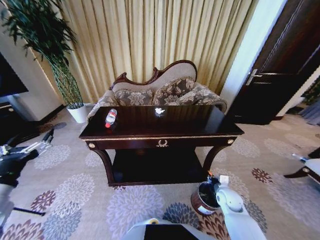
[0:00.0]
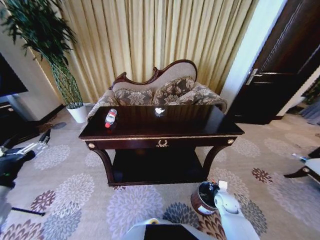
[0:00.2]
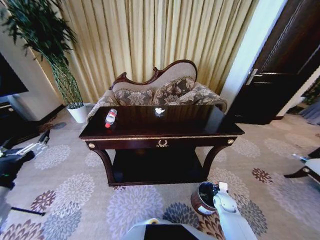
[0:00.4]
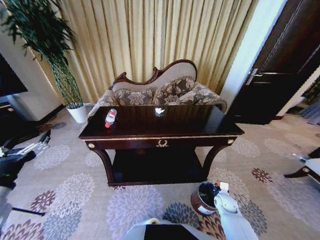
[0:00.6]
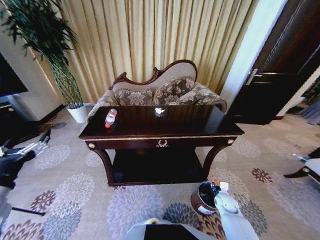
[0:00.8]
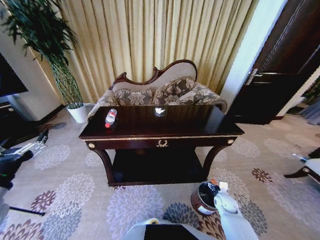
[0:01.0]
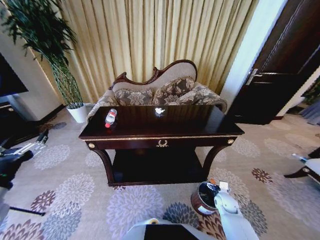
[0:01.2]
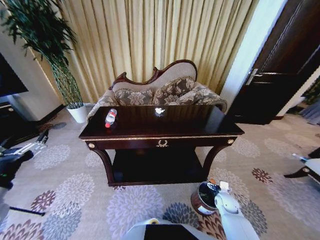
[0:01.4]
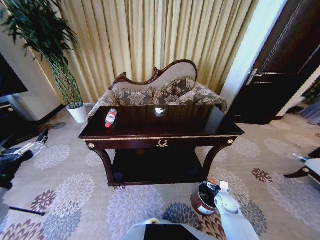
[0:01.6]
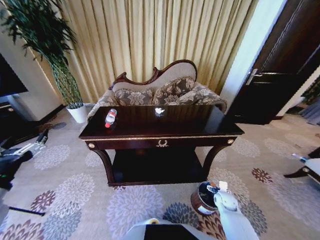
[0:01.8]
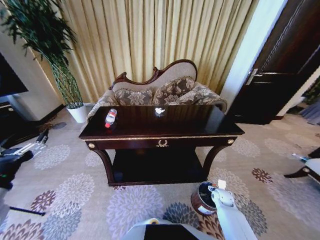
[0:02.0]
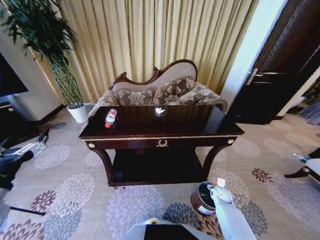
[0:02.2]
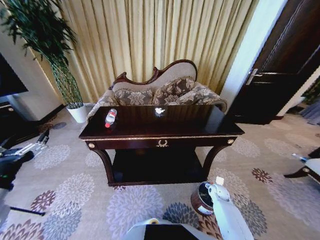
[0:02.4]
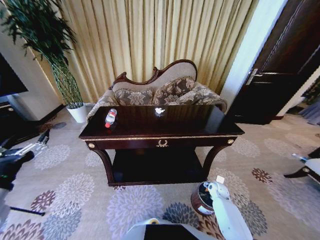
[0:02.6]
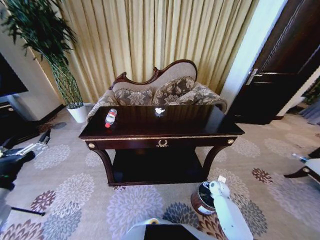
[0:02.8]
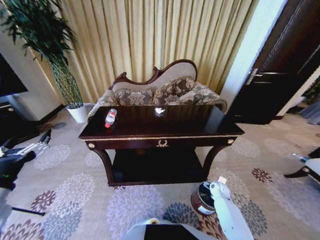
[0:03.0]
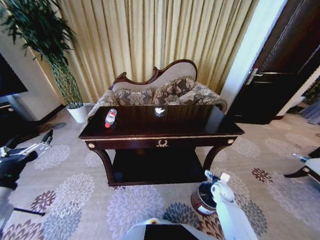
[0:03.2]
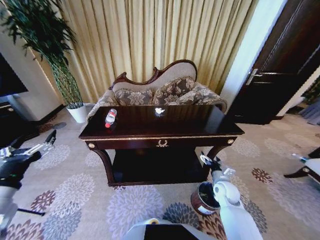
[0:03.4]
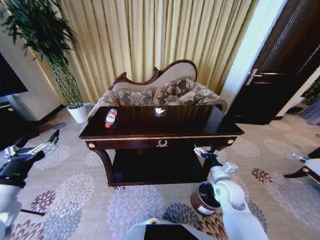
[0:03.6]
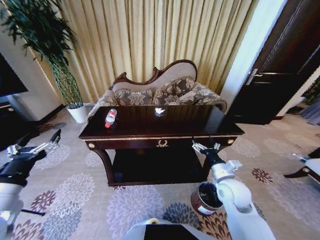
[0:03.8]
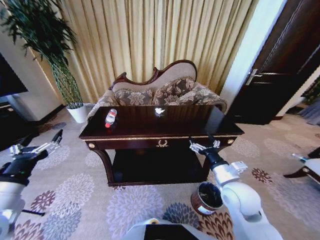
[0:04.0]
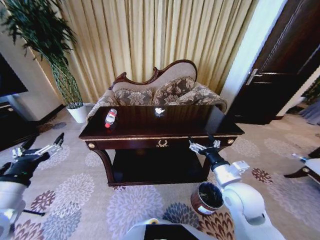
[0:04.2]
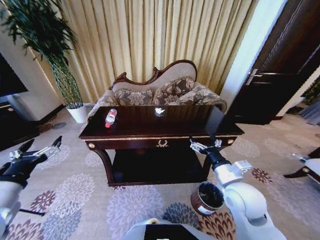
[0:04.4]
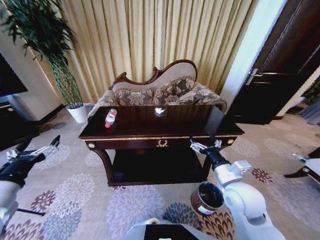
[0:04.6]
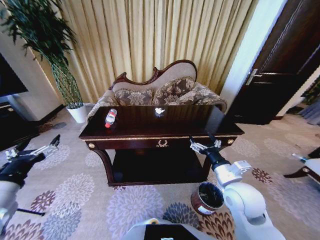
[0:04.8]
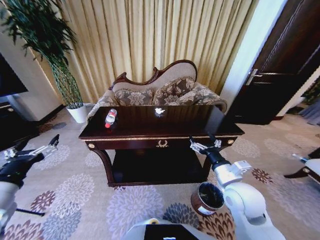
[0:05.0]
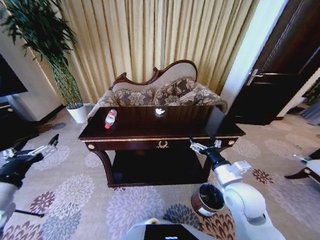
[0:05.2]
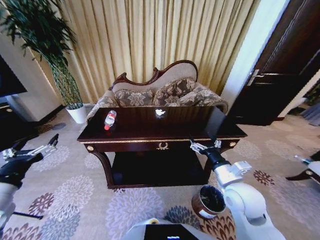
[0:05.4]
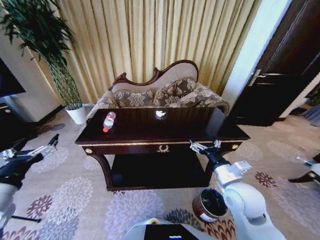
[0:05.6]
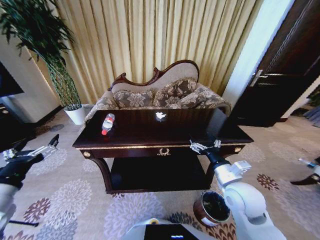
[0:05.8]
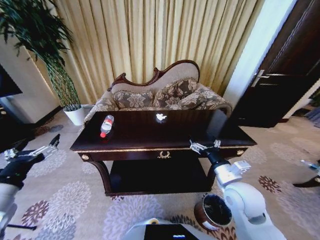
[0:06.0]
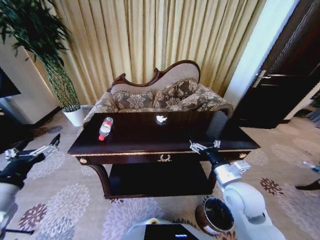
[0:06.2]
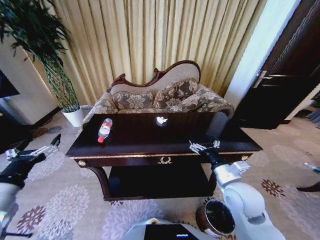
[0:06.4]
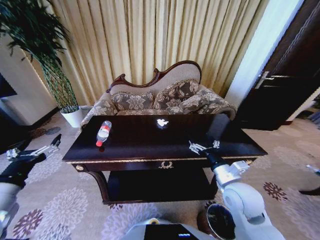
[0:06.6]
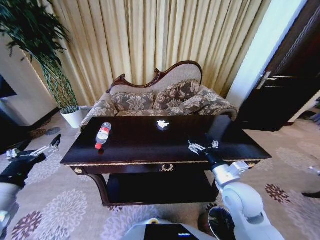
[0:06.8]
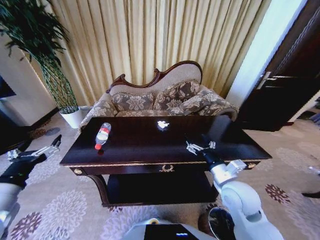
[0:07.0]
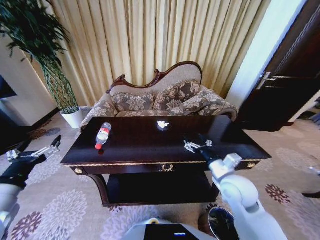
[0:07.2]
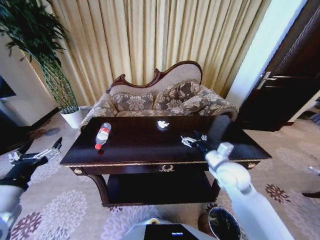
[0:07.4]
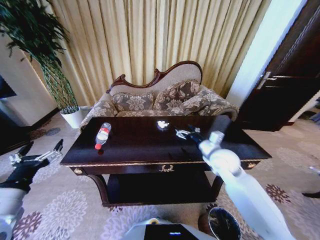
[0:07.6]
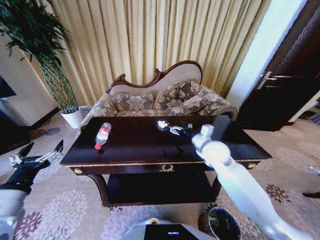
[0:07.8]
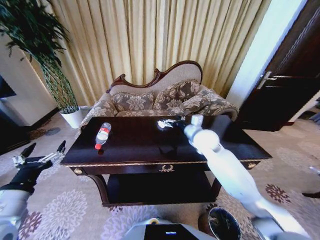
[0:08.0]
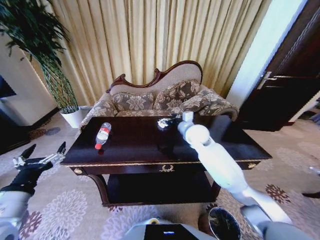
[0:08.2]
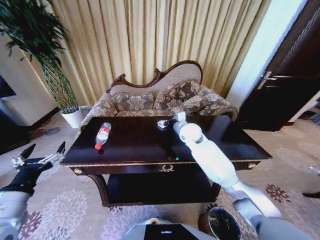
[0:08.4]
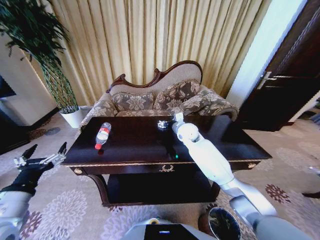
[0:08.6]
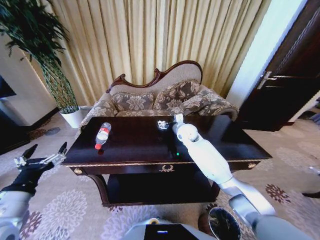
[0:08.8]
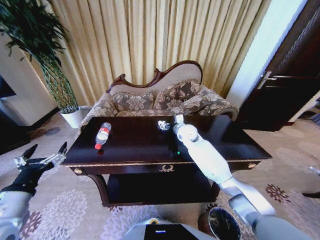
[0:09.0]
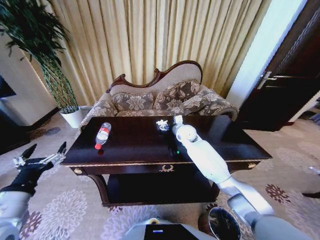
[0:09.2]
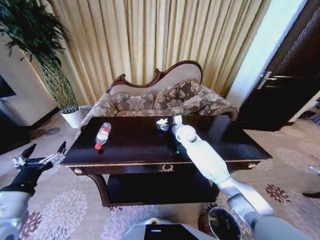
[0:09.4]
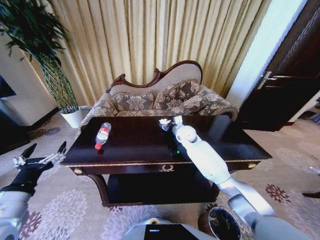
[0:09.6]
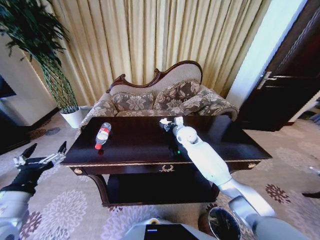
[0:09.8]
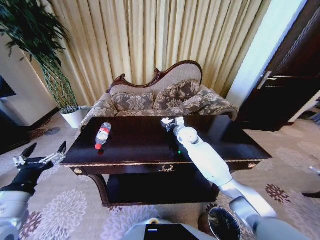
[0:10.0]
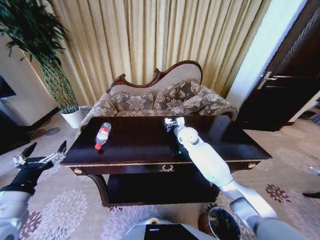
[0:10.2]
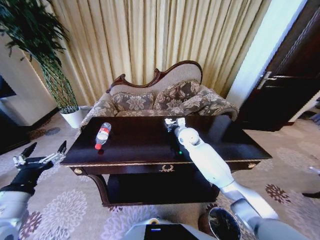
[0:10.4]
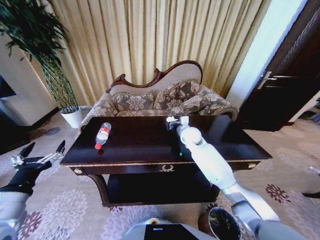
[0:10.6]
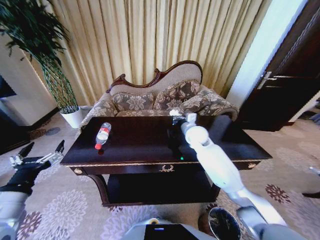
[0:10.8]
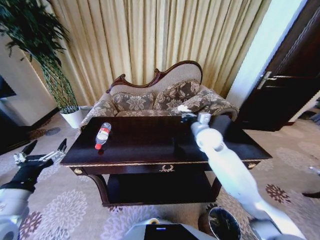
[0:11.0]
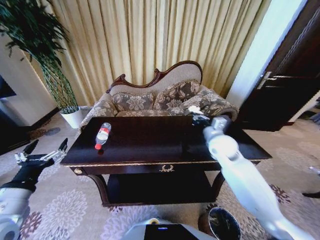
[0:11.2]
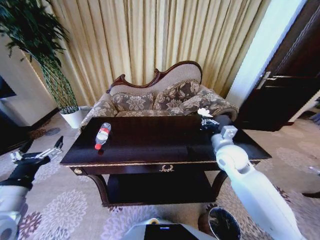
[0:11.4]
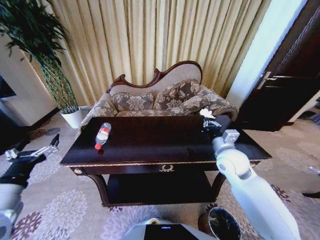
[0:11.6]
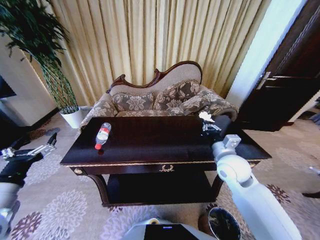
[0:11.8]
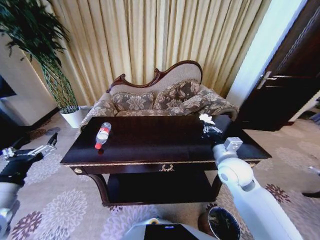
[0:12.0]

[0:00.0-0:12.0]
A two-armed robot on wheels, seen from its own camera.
Task of the whole recording: Move to the front of the table and place the trash on the table into the trash bin.
0:00.0 to 0:01.6: The right gripper is displaced downward by about 5 cm, and opens up.
0:01.6 to 0:03.0: The right gripper travels forward by some 5 cm.
0:03.0 to 0:04.4: The right gripper travels upward by roughly 30 cm.
0:06.0 to 0:07.6: The right gripper is displaced forward by some 15 cm.
0:07.6 to 0:09.0: The right gripper heads forward and to the left, covering some 20 cm.
0:09.0 to 0:10.4: The right gripper closes its fingers.
0:10.4 to 0:12.0: The right gripper shifts some 20 cm backward and to the right.

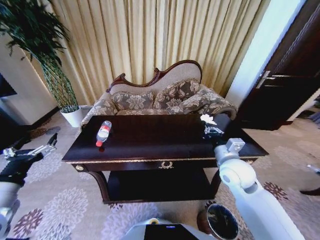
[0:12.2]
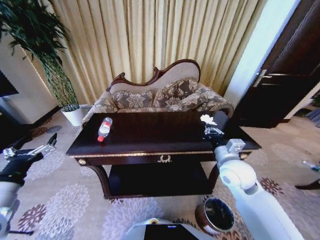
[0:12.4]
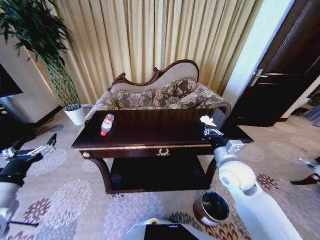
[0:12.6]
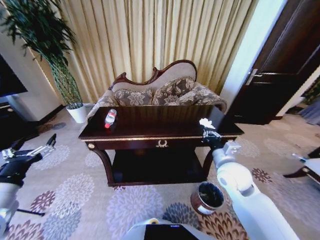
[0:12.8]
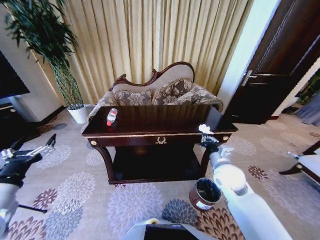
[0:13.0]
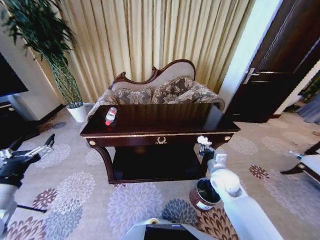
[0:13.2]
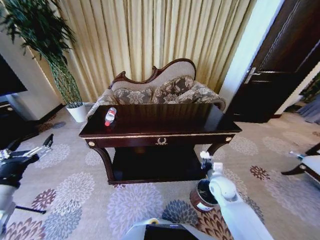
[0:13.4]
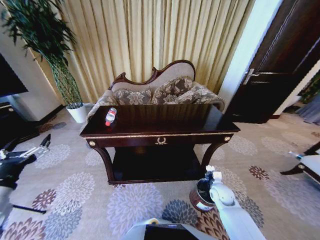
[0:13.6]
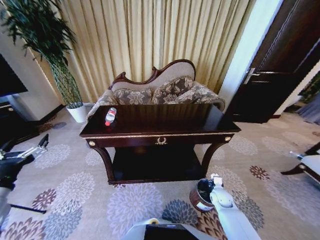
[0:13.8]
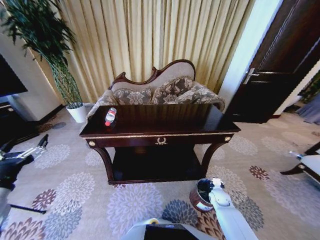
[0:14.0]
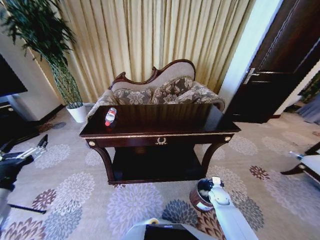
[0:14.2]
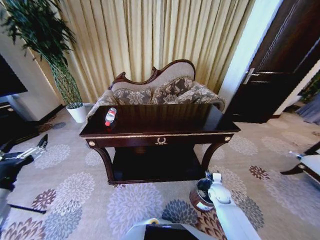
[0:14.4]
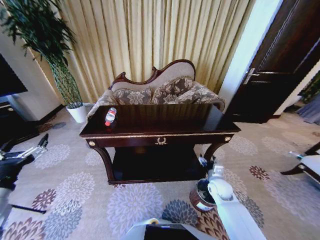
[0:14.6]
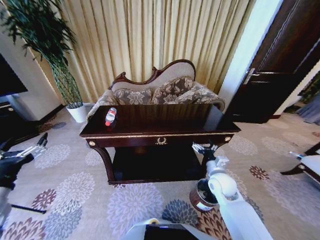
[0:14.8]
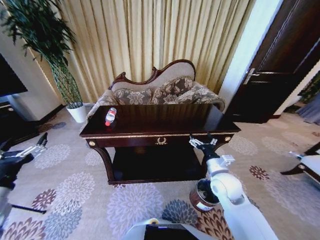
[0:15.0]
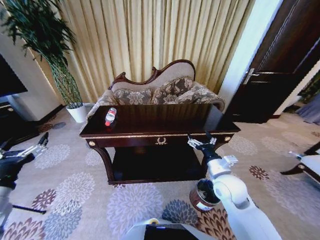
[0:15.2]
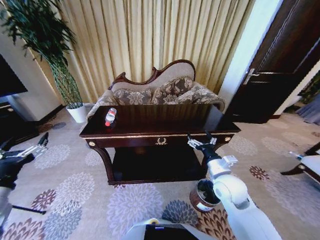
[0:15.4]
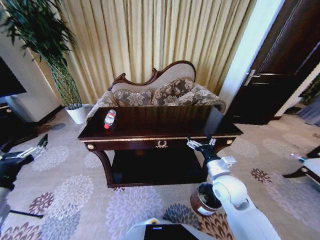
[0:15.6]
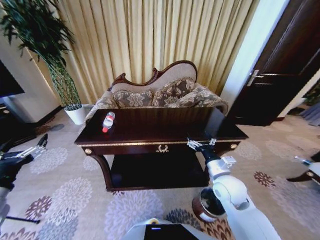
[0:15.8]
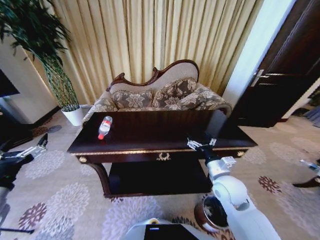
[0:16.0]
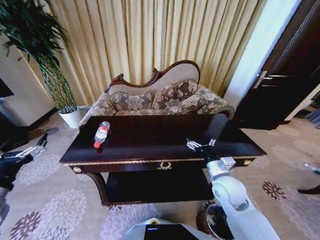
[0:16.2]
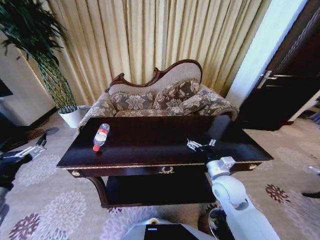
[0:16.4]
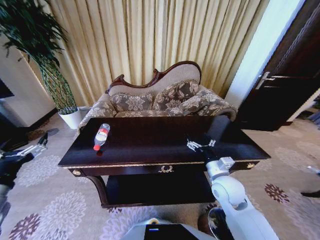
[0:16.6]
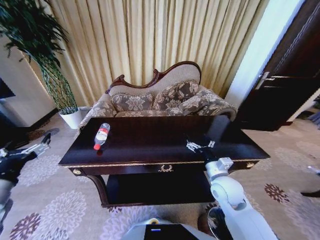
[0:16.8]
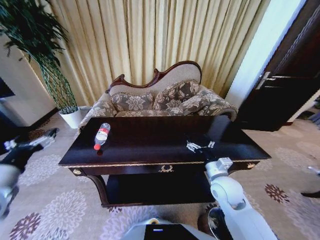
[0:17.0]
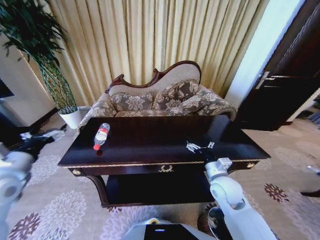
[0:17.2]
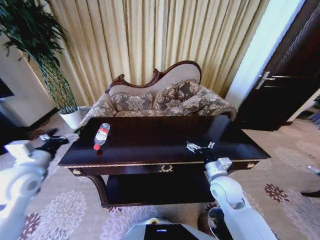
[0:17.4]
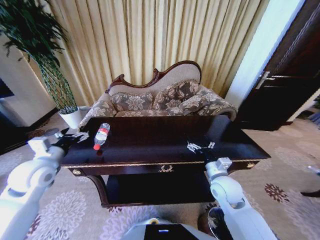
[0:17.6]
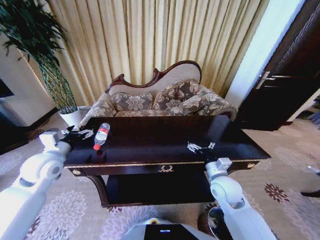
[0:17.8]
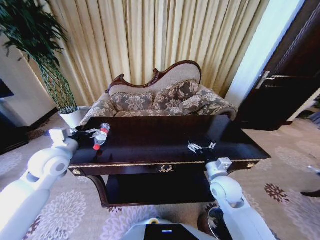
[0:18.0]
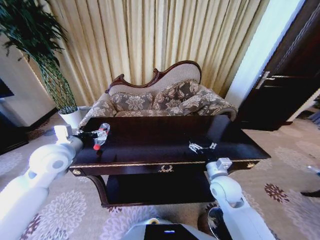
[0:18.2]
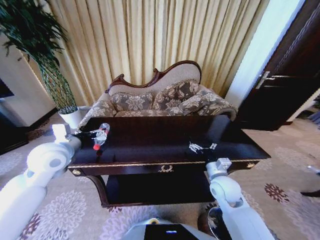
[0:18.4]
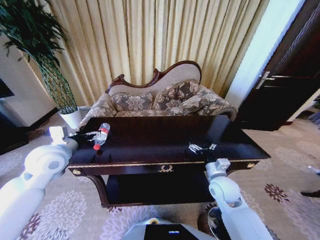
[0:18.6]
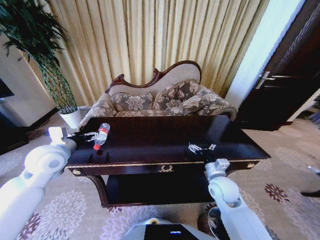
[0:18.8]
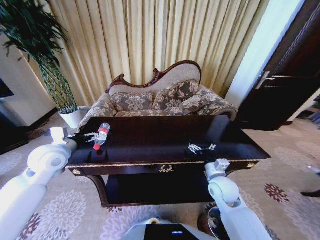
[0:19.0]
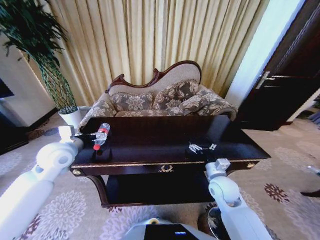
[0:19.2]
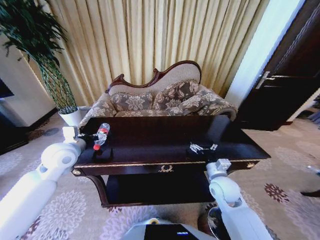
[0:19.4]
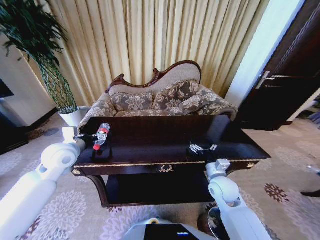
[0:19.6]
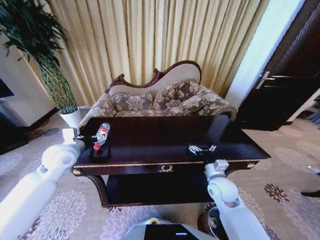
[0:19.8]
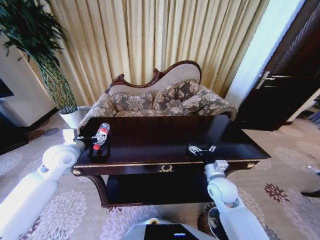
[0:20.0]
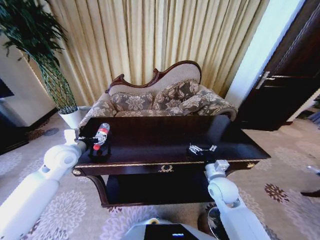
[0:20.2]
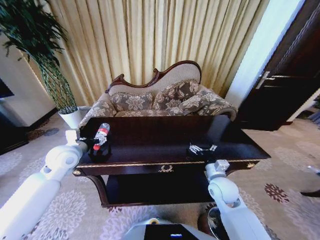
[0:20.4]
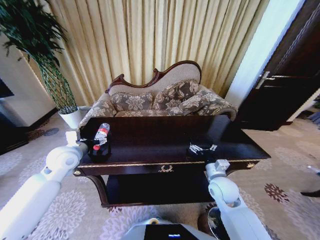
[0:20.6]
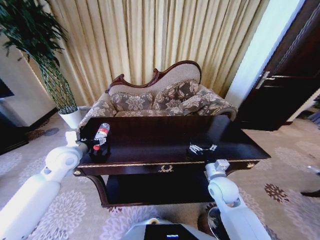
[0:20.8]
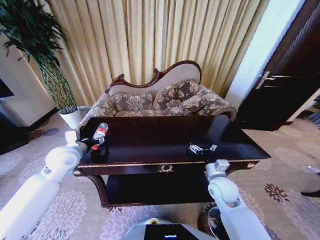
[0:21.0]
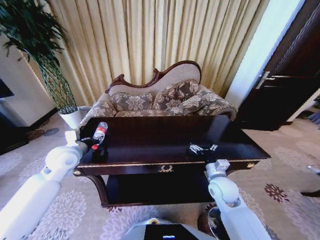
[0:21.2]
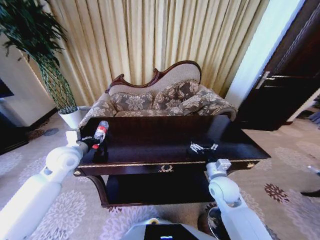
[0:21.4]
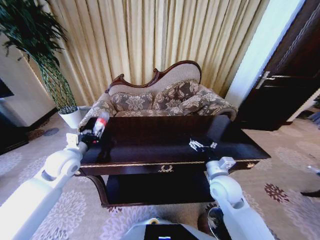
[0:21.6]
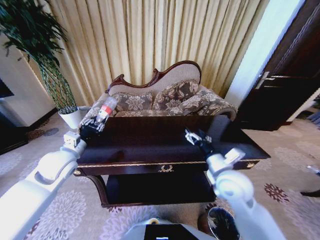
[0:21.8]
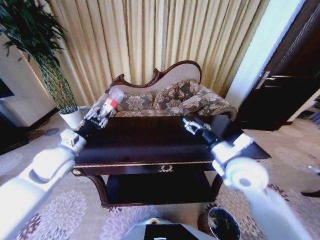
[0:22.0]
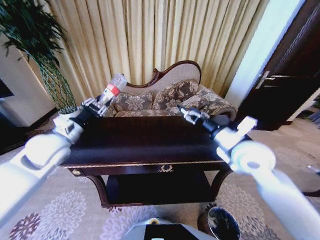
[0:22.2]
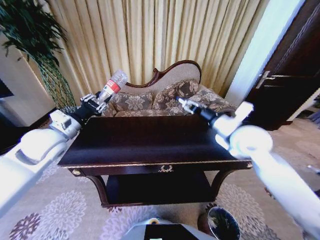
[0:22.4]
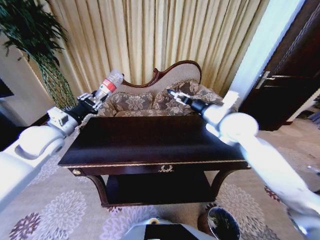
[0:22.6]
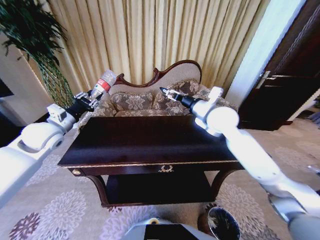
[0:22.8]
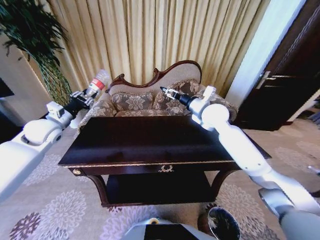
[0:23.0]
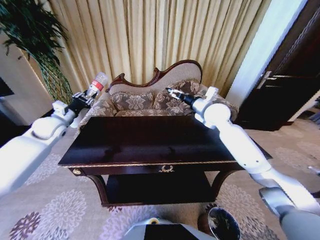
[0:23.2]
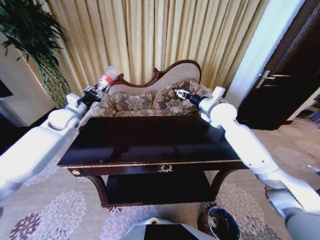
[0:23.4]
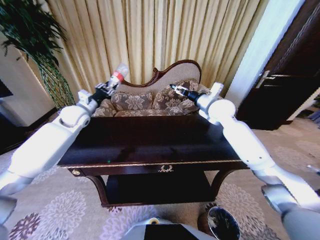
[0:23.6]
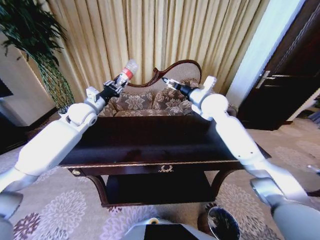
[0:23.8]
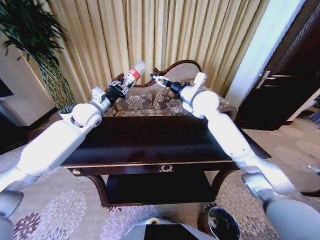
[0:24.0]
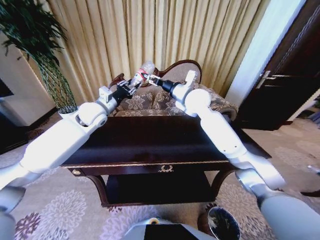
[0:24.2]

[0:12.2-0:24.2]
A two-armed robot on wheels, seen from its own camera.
Task of the whole recording: Move to the front of the table and place the trash on the table into the trash bin.
0:12.2 to 0:13.8: The right gripper heads downward, covering about 30 cm.
0:13.8 to 0:15.2: The right gripper goes approximately 25 cm upward, and opens.
0:16.6 to 0:18.2: The left gripper is displaced forward and to the right by approximately 20 cm.
0:18.2 to 0:19.8: The grippers make only small movements.
0:19.8 to 0:21.2: The left gripper closes its fingers.
0:21.2 to 0:22.6: The right gripper shifts roughly 25 cm upward and forward, while the left gripper heads upward, covering roughly 10 cm.
0:22.6 to 0:24.2: The right gripper heads forward and to the left, covering some 15 cm. The left gripper travels forward and to the right by about 15 cm.
